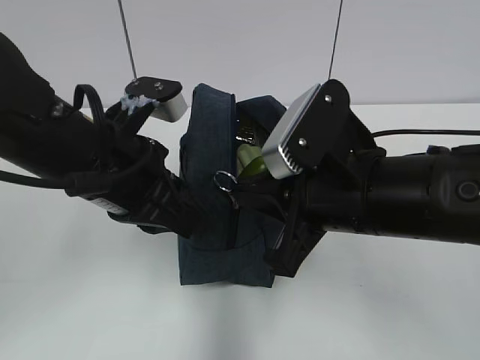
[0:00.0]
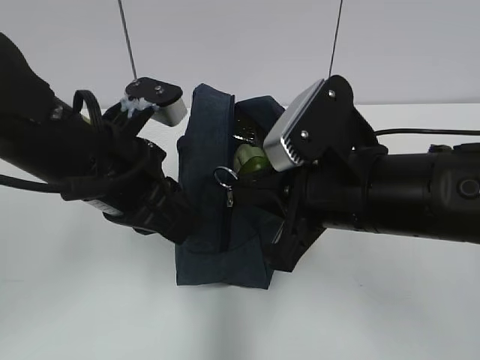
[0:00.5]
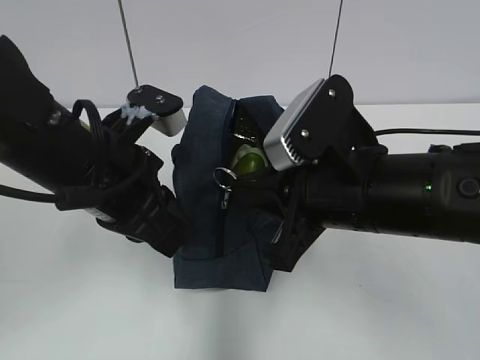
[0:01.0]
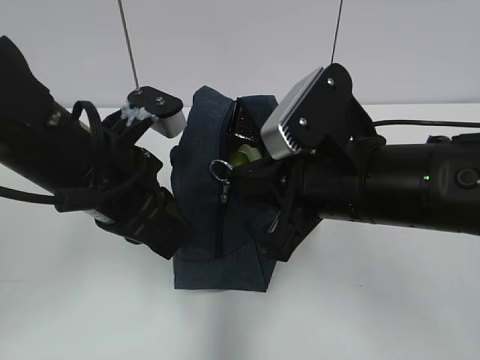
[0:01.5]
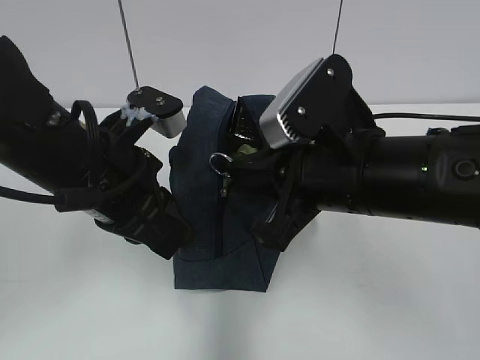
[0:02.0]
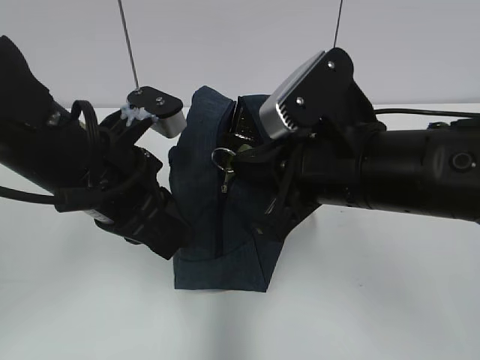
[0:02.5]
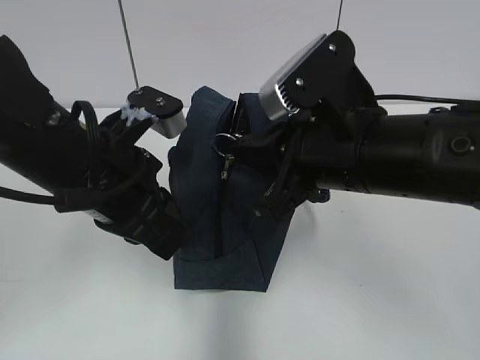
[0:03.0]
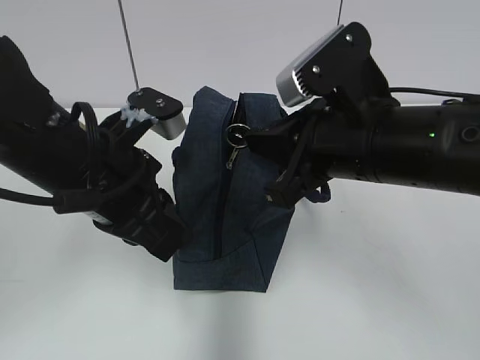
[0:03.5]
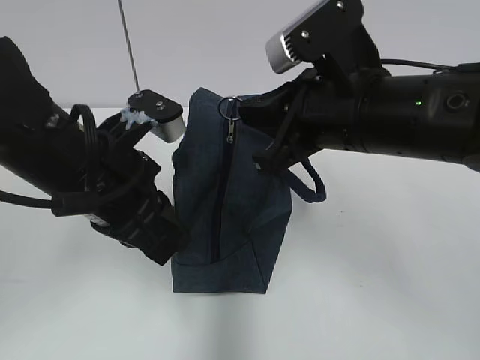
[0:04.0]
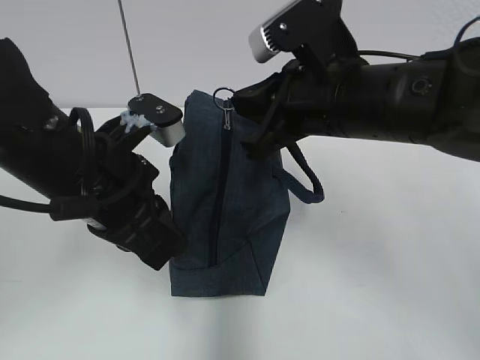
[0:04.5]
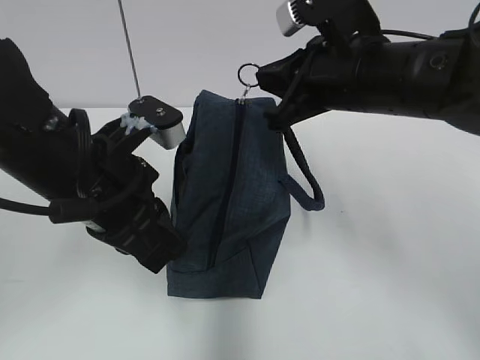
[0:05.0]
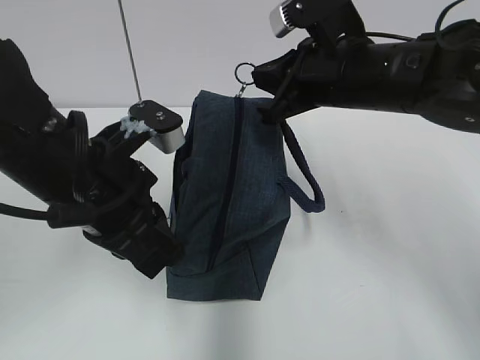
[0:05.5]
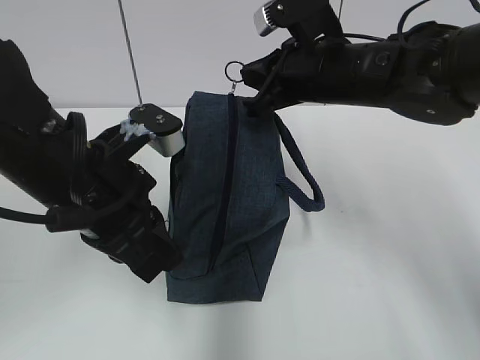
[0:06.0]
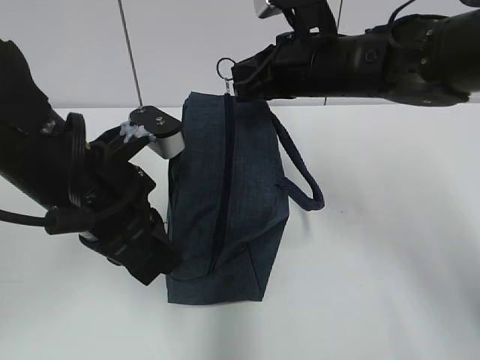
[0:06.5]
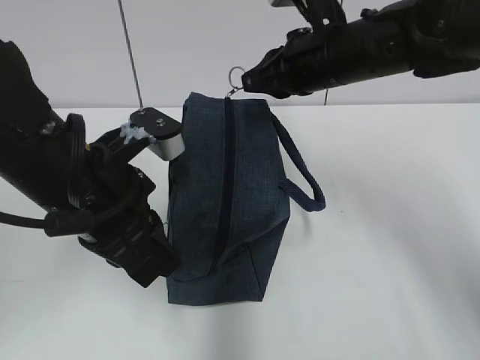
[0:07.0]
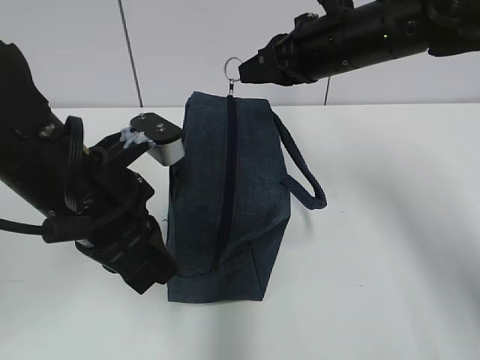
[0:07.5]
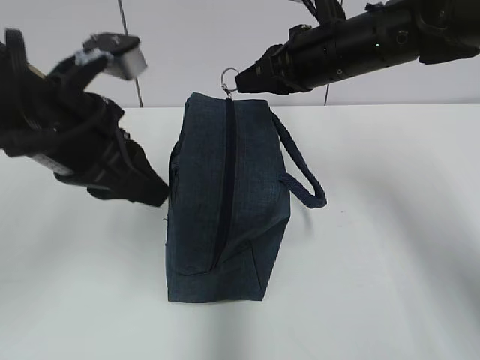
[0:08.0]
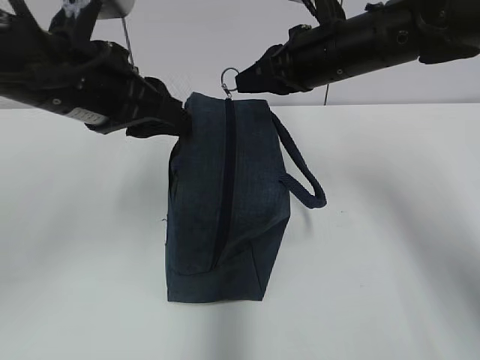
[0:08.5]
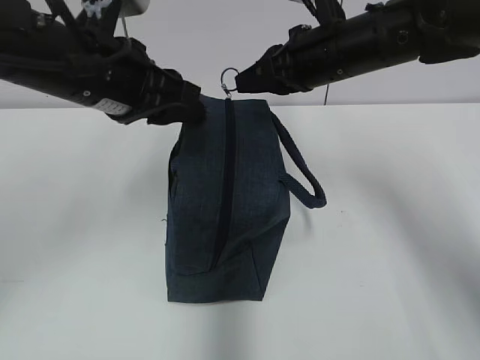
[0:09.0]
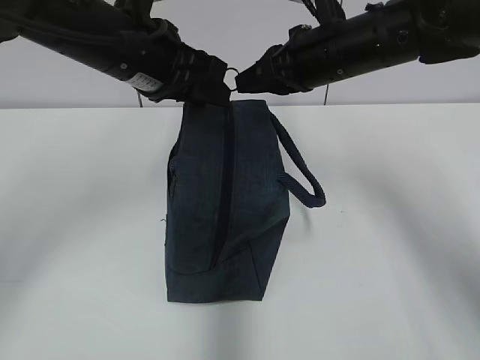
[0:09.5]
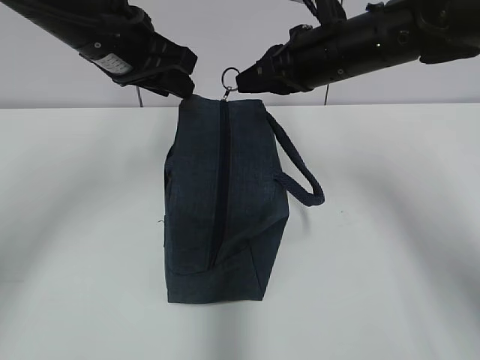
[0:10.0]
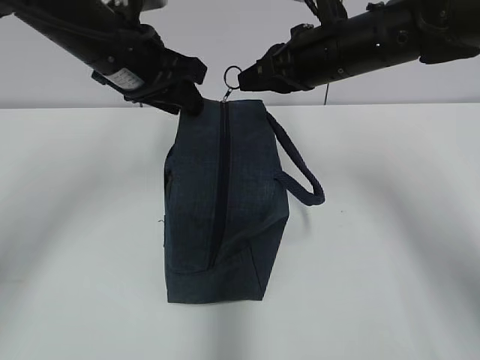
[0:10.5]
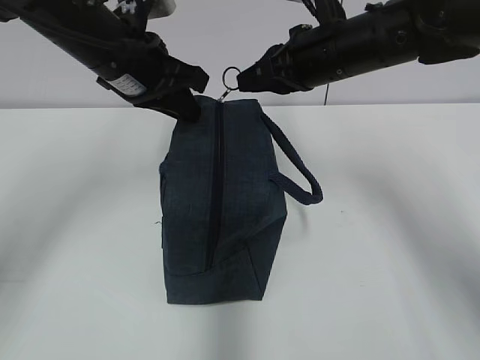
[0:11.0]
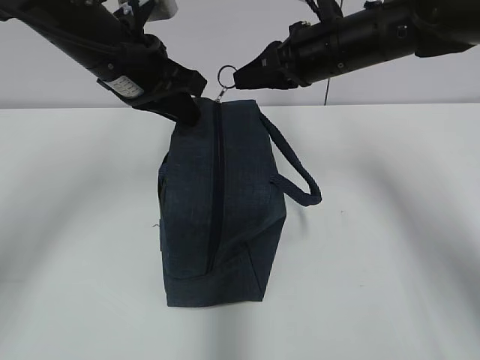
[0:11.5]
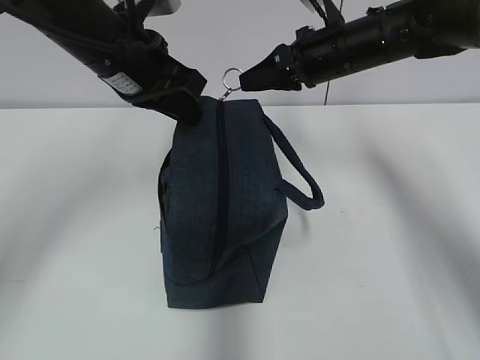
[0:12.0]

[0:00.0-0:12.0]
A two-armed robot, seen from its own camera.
0.0 to 2.0 s: The grippers make only small movements.
4.0 to 6.0 s: The right gripper moves forward, approximately 10 cm.
6.0 to 8.0 s: The left gripper shifts by some 5 cm.
8.0 to 10.0 s: The left gripper is displaced forward by about 10 cm.
10.0 to 12.0 s: The left gripper closes.

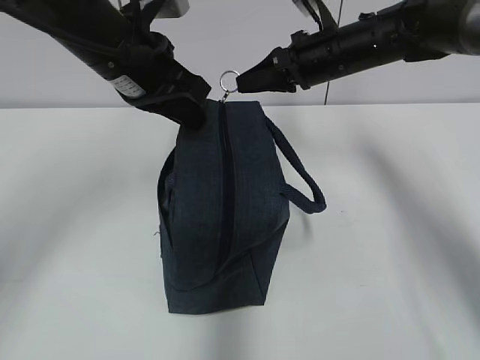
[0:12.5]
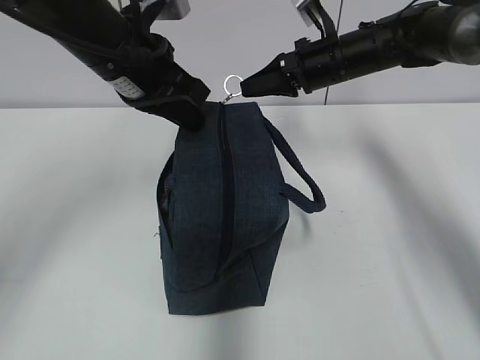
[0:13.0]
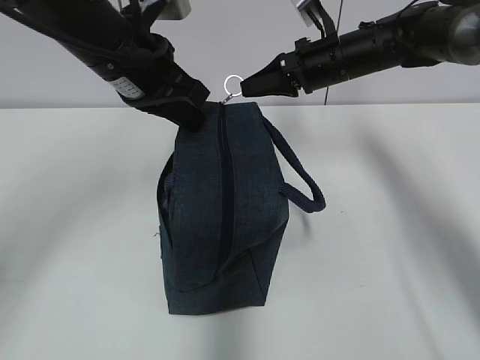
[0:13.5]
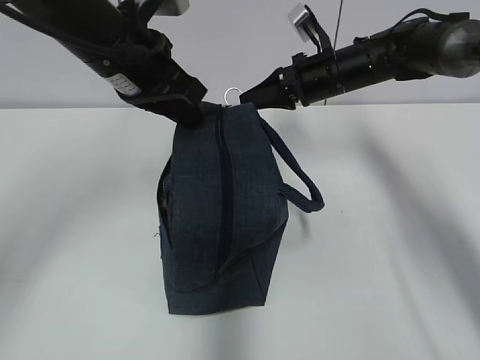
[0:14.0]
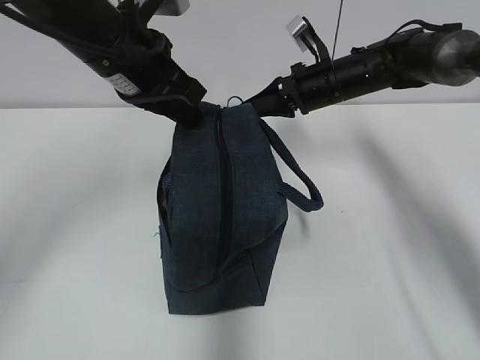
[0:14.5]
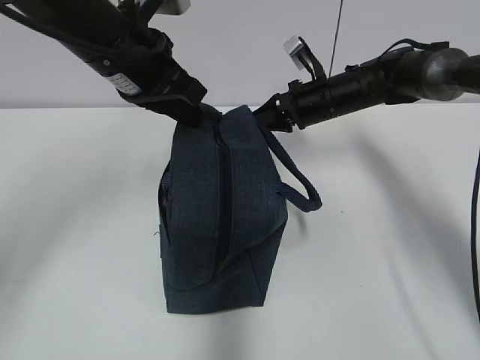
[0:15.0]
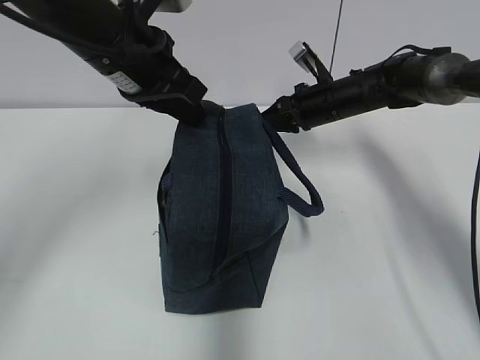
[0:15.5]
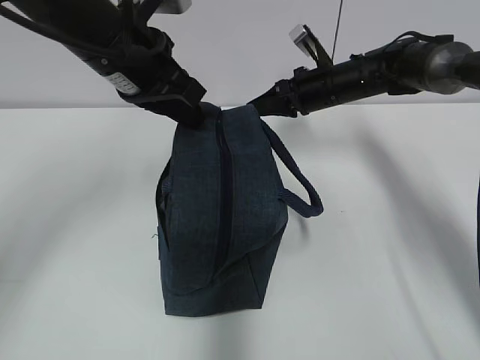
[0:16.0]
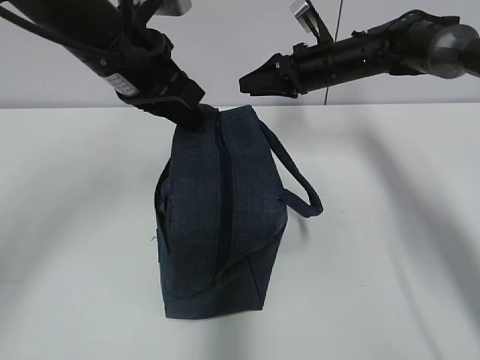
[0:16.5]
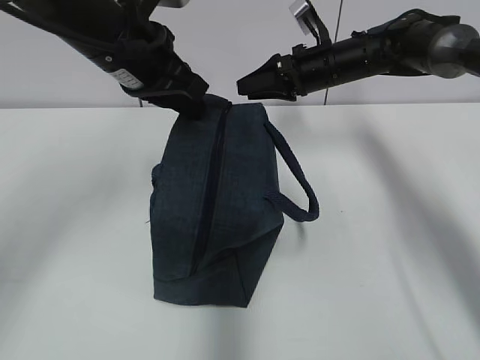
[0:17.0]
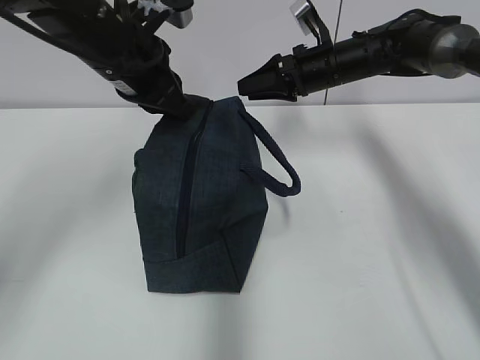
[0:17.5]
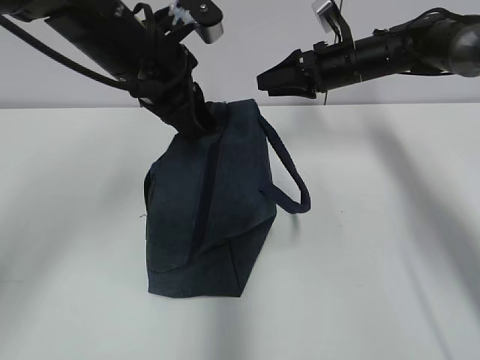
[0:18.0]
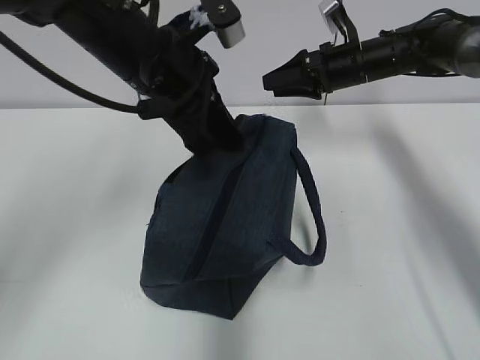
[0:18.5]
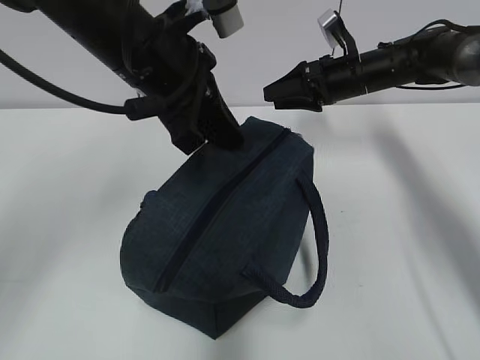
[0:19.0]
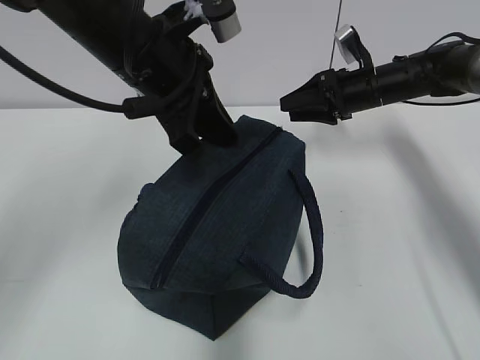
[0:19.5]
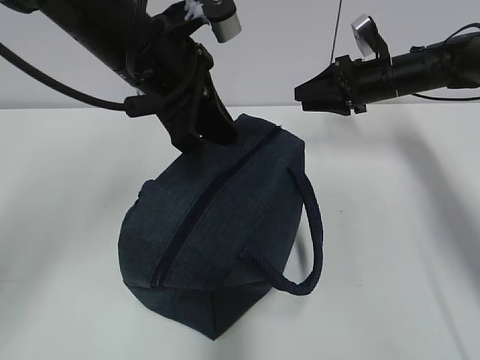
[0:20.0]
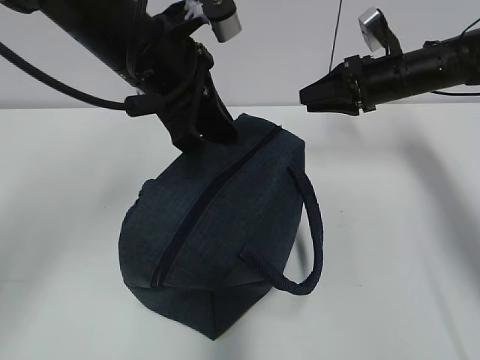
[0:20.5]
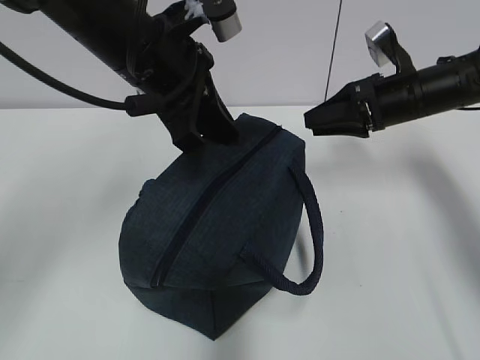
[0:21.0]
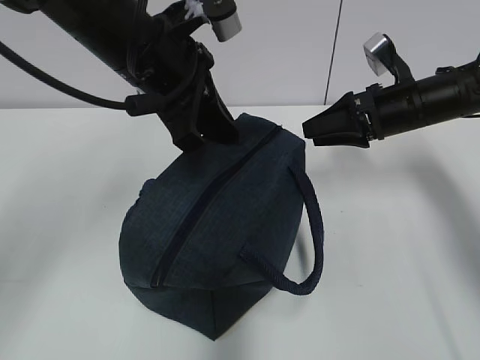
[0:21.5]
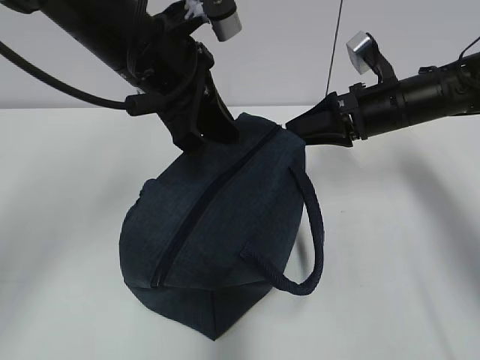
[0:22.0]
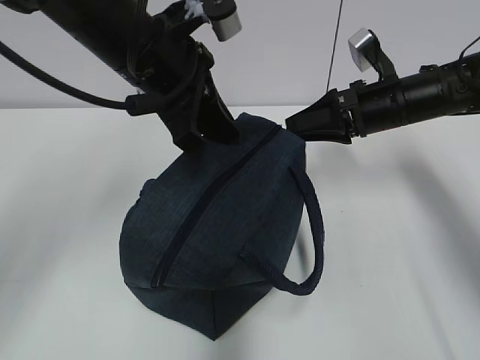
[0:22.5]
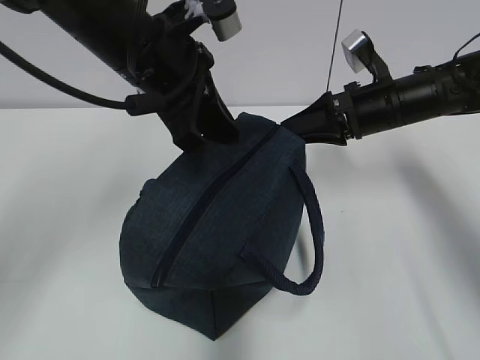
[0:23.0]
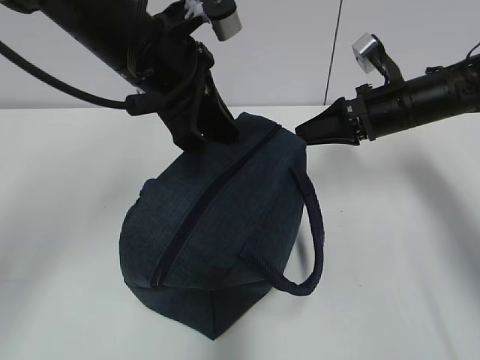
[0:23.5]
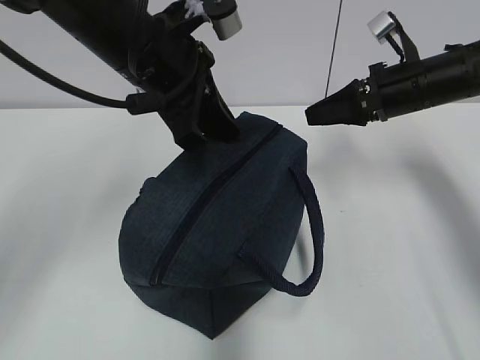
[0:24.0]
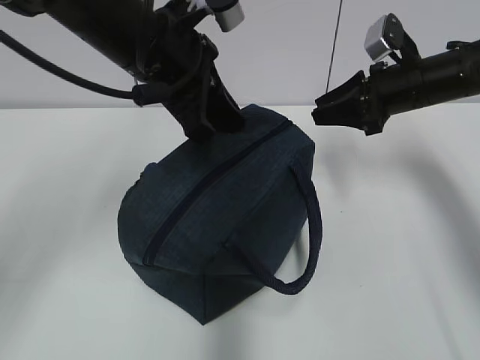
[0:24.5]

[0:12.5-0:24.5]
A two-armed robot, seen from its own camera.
12.5 to 14.5 s: The right gripper heads downward, covering about 5 cm.
14.5 to 16.5 s: The right gripper opens its fingers.
18.5 to 20.5 s: The right gripper moves about 5 cm.
20.5 to 22.5 s: The right gripper heads backward, covering some 5 cm.

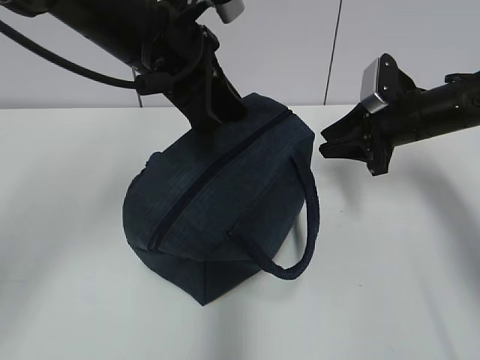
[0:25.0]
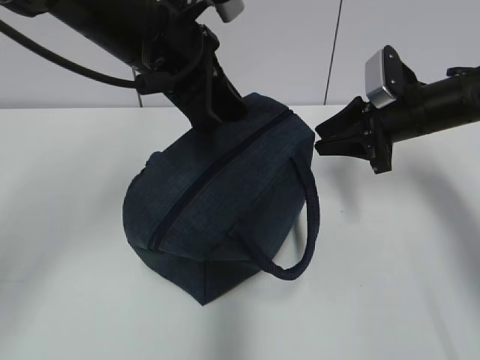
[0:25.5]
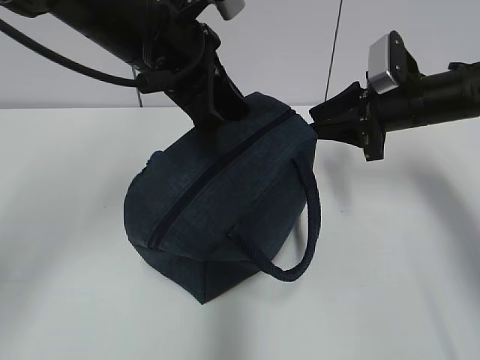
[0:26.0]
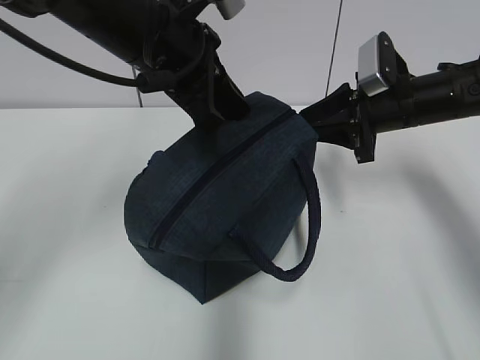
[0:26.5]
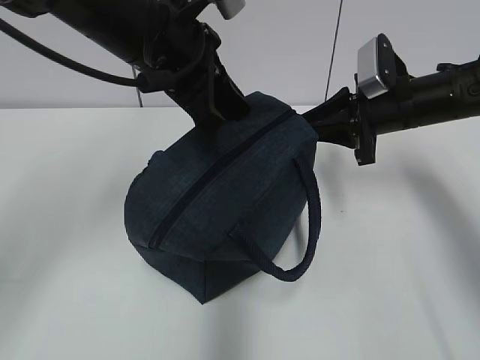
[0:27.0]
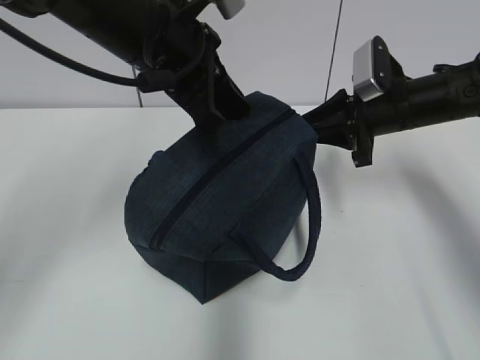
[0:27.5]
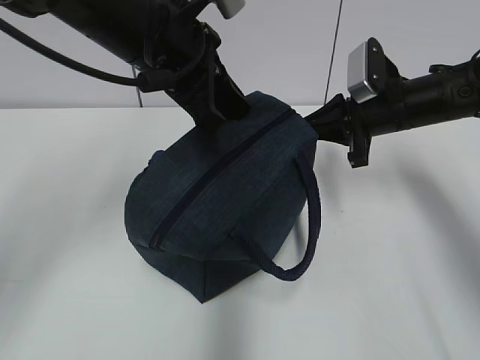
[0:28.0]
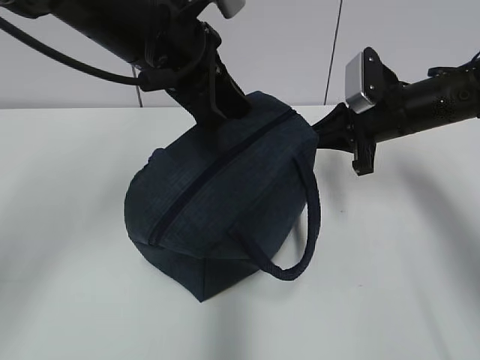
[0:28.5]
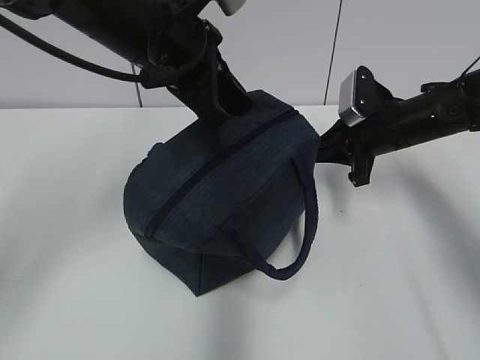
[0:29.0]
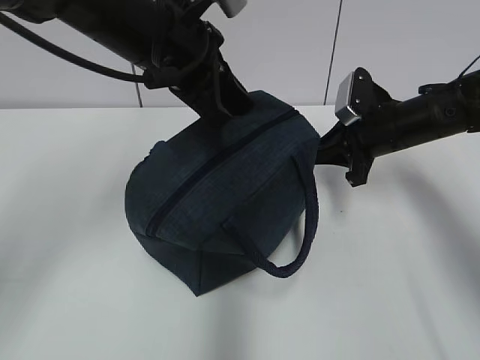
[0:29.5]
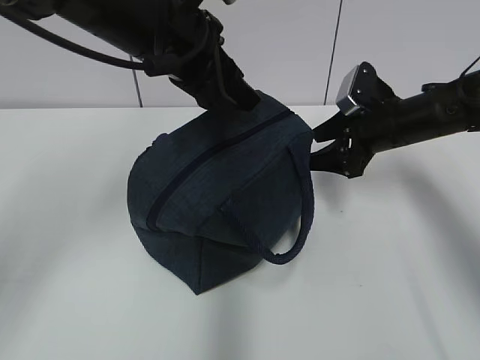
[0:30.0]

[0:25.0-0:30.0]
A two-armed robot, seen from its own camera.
25.0 to 27.5 s: There are only small adjustments of the grippers.
27.5 to 30.0 s: The left gripper opens up. Meanwhile the right gripper opens up.
